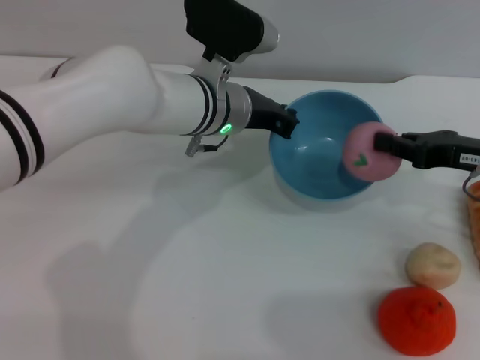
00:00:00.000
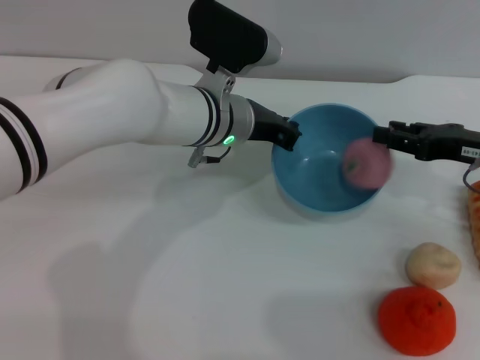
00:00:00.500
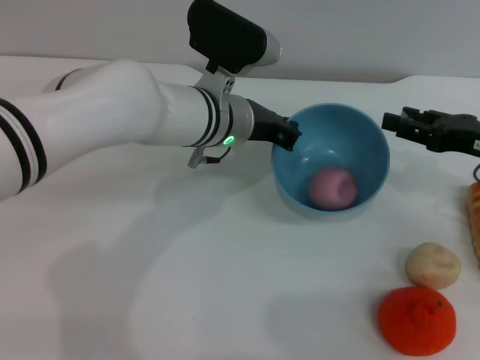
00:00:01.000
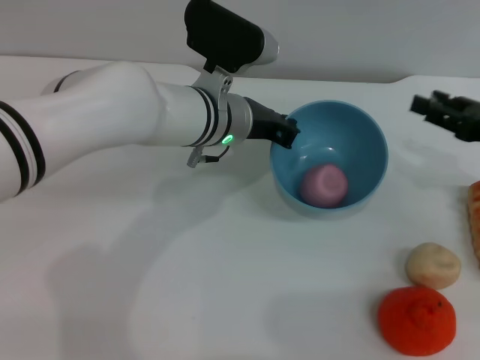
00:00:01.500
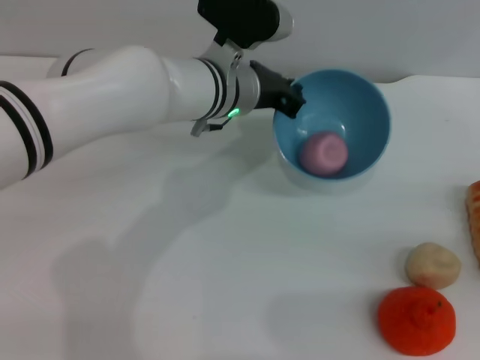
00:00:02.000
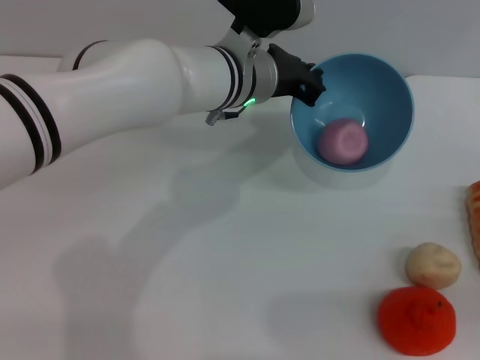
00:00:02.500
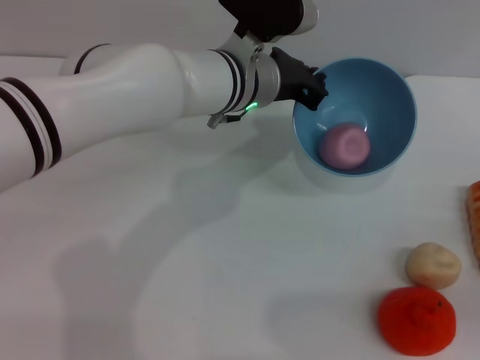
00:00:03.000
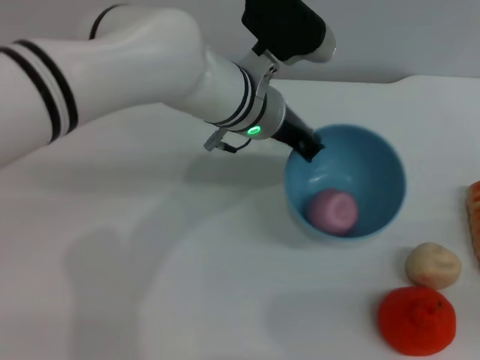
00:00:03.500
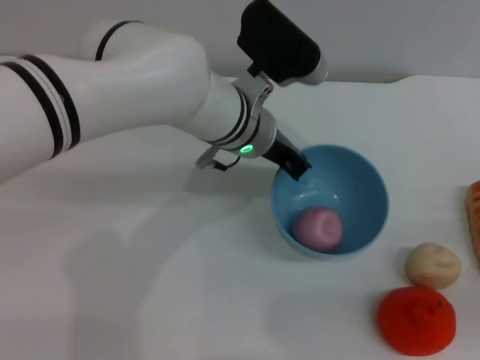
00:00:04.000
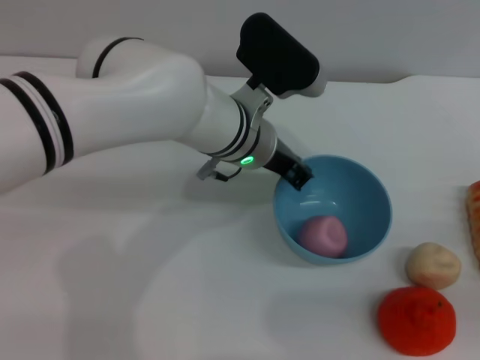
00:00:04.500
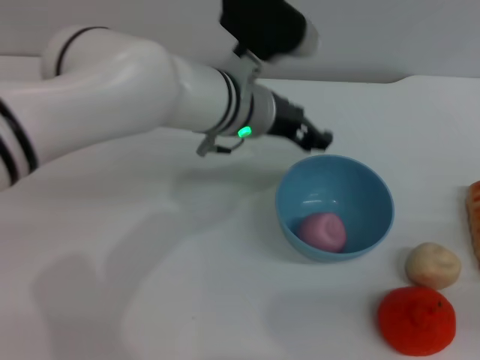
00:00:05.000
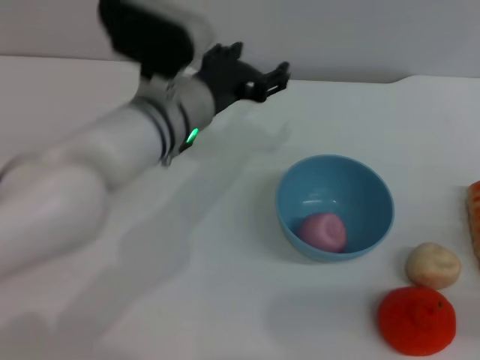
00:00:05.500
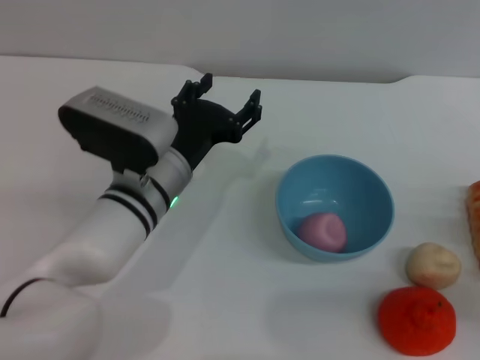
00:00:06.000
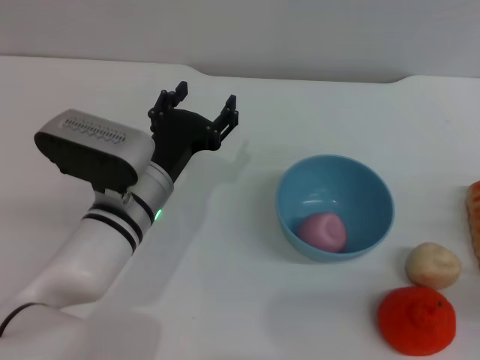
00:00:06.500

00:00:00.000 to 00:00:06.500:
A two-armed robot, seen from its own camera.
Task of the whole recording: put the peach into the blue bowl and pour it out repeatedly.
Step, 00:00:00.000 to 00:00:01.000: Place the peach into the bowl.
Step, 00:00:01.500 to 00:00:05.000: Place the bowl on the table.
00:00:00.000 to 00:00:02.000: The right gripper is displaced to the right and backward by about 15 cm, and opens its fingers.
00:00:02.000 to 00:00:04.500: The right gripper changes place by approximately 5 cm.
00:00:04.500 to 00:00:06.500: The left gripper is displaced to the left, backward and downward by some 15 cm, and opens up, while the right gripper moves to the left, some 5 cm.
